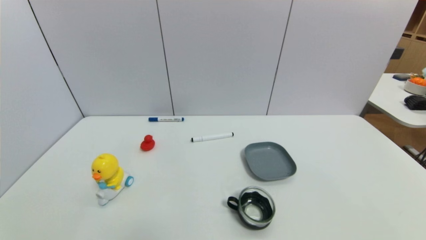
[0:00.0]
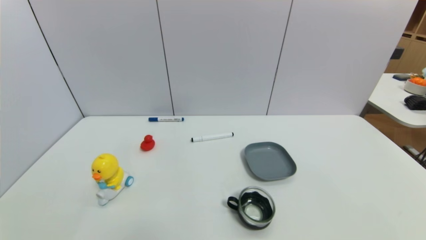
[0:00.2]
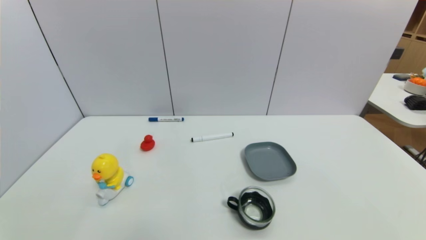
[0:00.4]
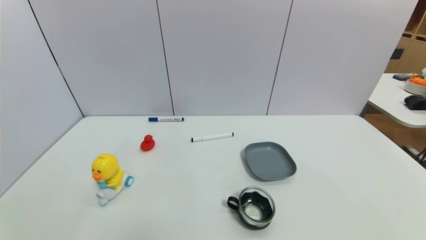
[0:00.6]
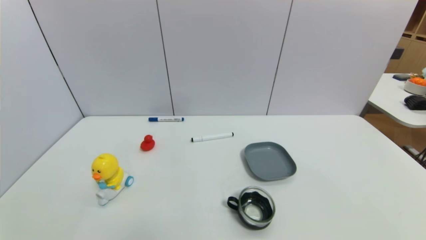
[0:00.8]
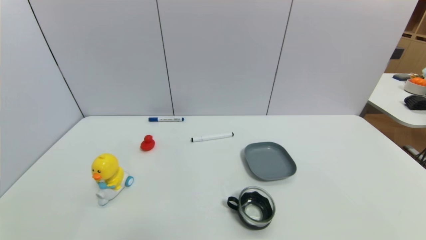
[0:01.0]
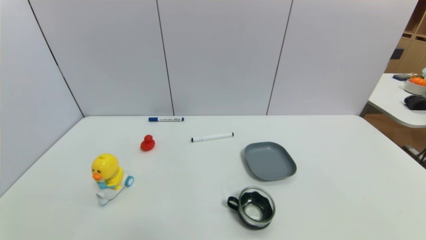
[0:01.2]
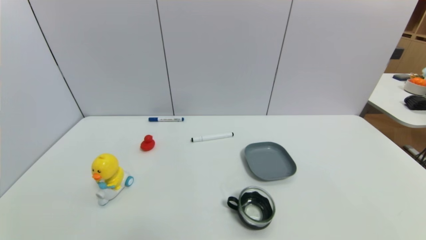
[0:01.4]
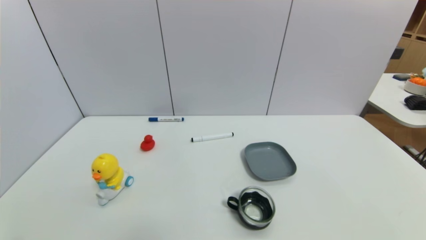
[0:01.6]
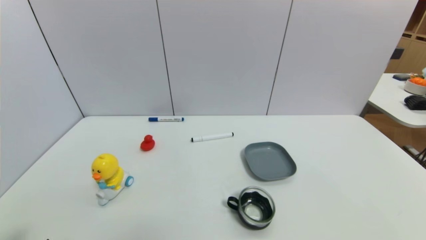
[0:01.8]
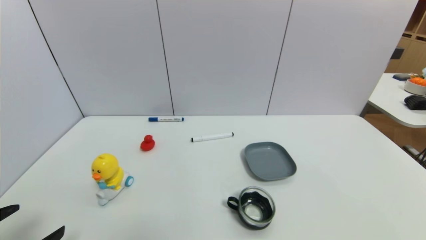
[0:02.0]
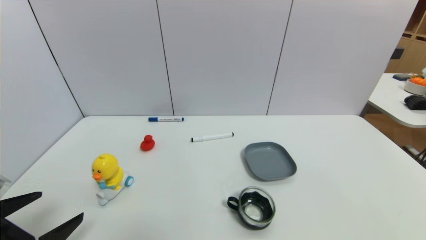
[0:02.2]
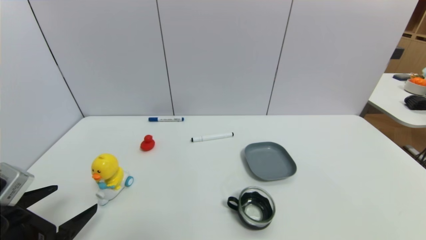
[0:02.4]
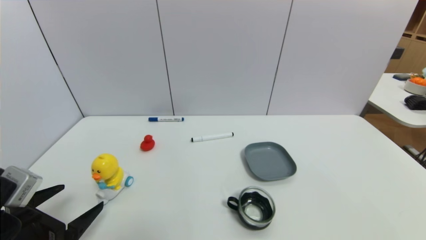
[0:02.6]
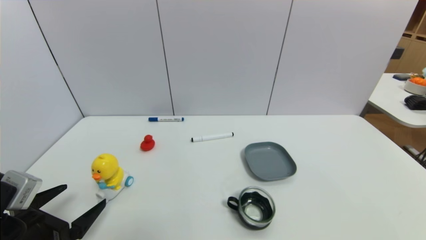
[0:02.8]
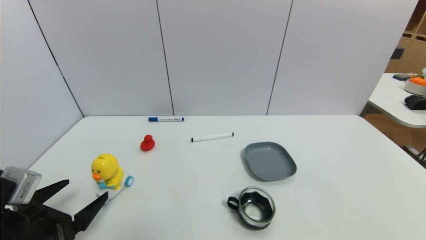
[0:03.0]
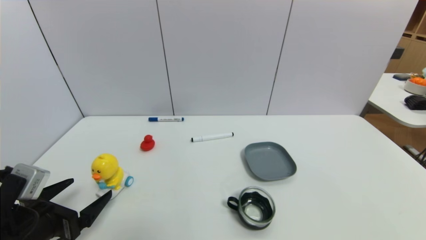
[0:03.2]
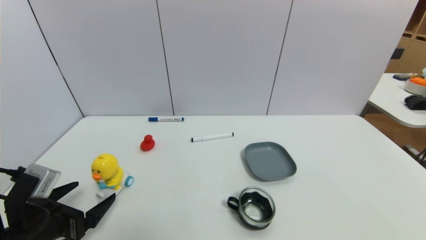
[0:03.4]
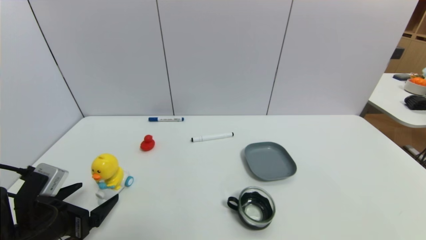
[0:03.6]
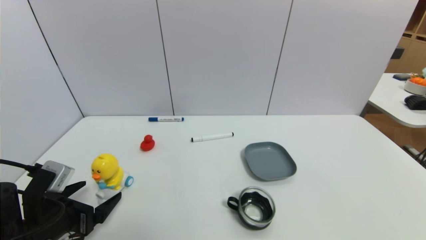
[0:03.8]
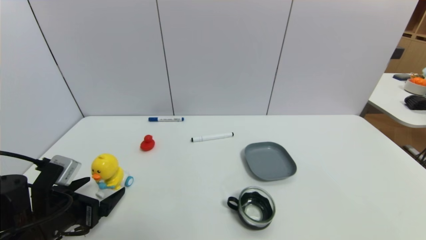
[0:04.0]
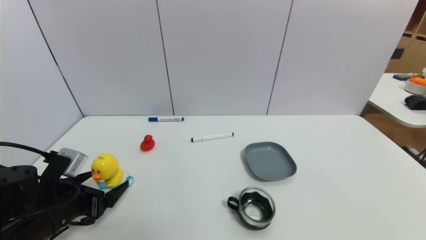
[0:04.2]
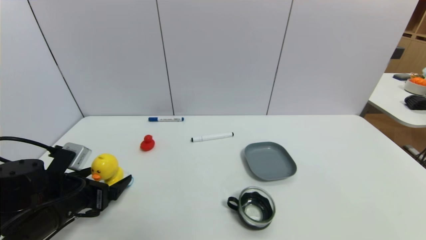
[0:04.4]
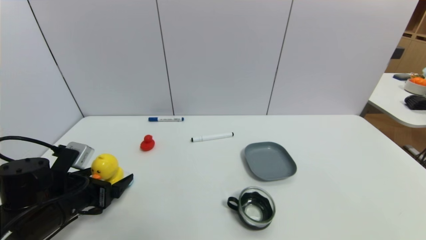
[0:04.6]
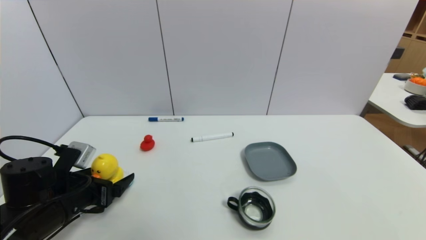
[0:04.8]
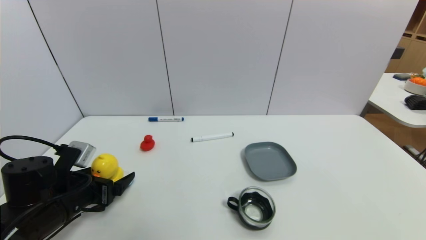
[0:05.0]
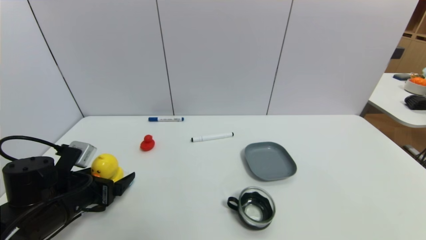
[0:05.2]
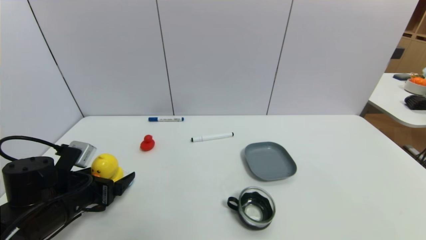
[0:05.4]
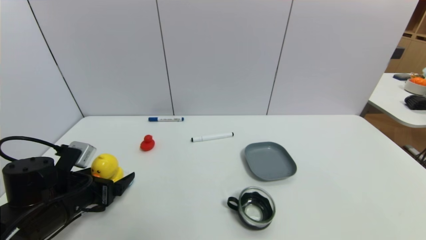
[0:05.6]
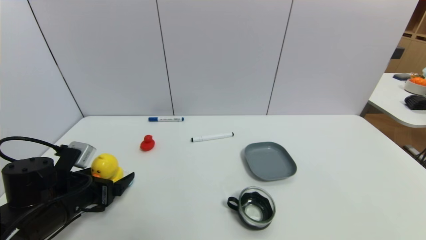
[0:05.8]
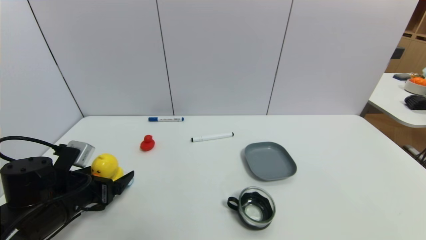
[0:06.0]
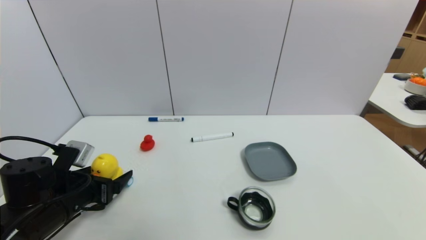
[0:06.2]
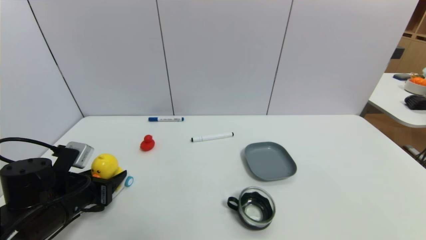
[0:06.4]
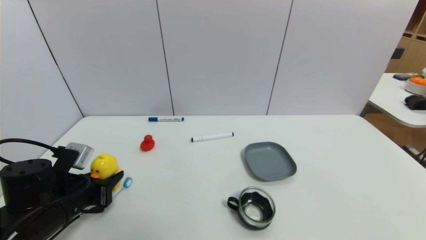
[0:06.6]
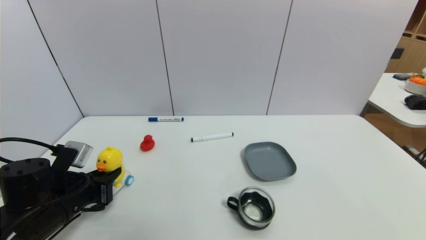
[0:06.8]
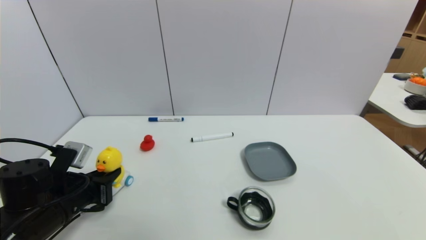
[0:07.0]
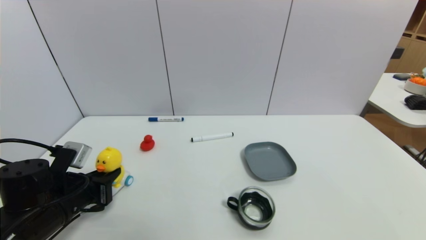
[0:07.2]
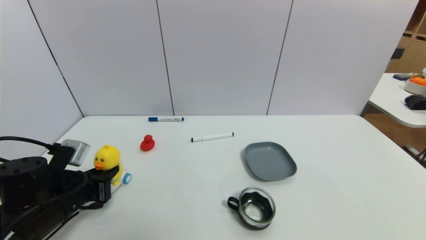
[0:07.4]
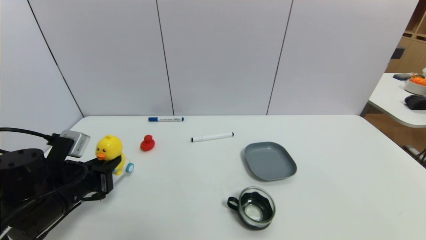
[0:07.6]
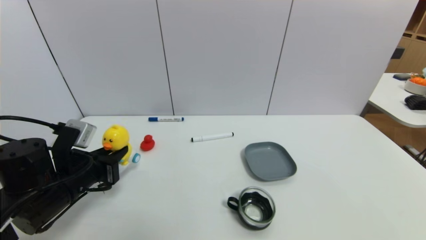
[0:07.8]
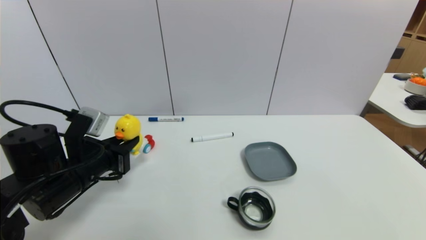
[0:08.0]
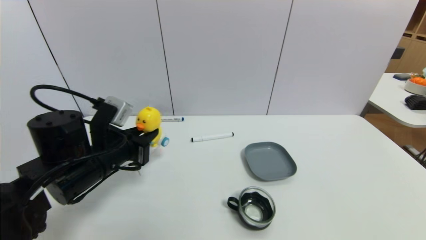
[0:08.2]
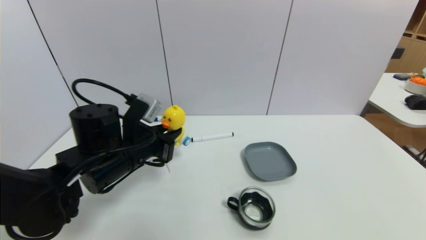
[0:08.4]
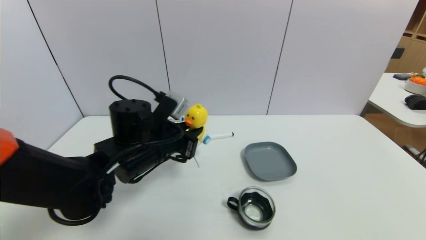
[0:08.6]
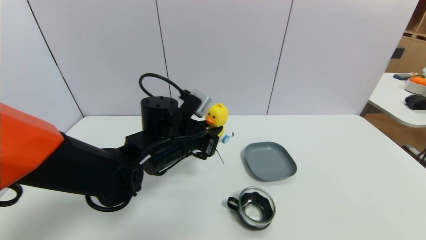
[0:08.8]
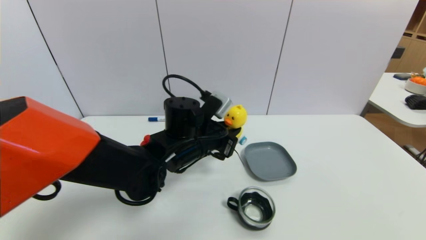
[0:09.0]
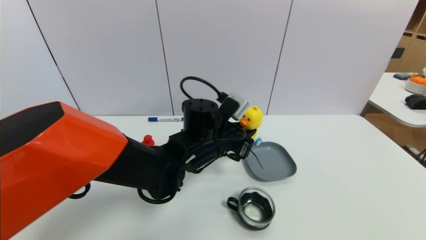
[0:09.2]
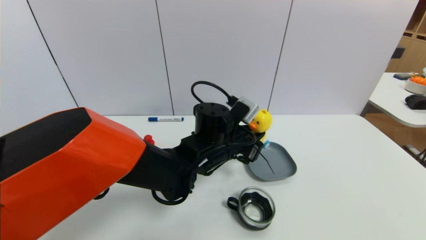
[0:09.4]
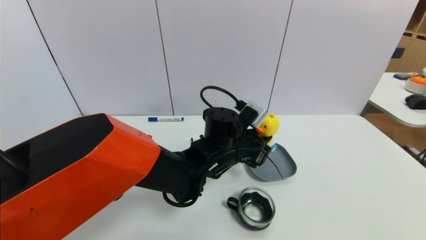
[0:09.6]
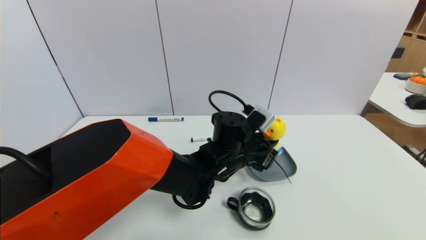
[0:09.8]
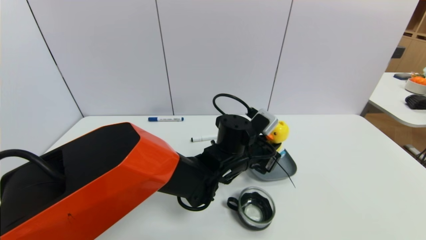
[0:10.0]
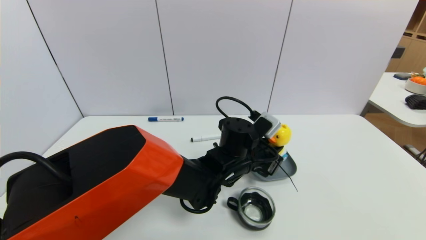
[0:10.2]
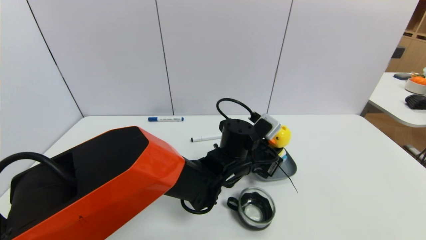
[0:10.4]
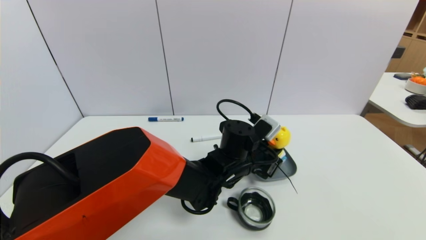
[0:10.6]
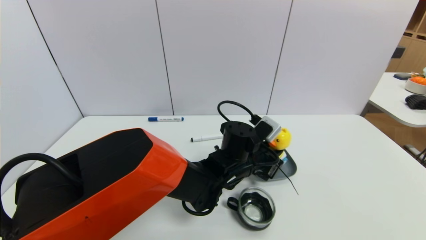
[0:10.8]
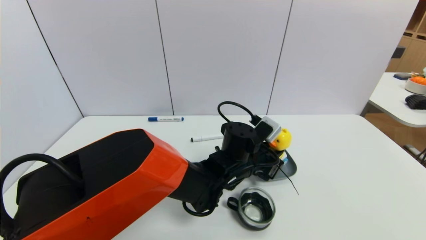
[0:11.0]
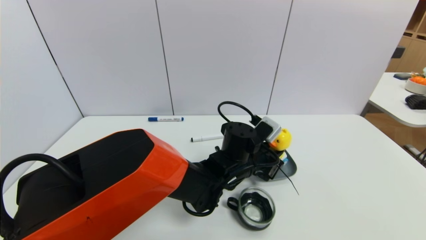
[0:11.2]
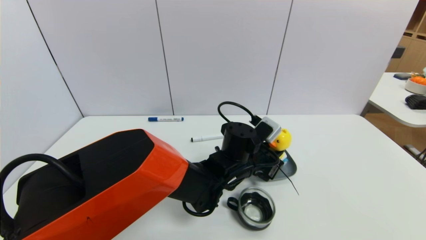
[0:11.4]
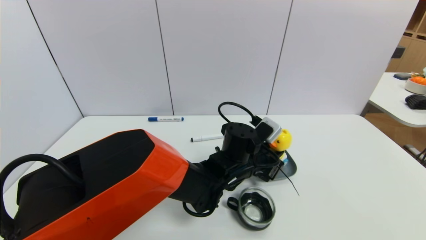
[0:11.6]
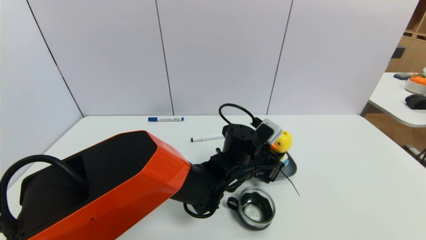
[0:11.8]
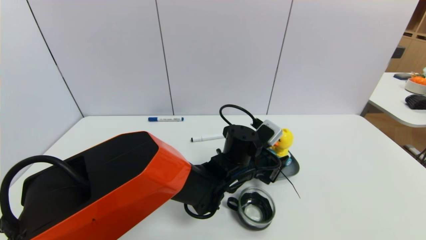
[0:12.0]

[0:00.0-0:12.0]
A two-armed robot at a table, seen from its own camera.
Task of the whole recording: use a gripper to pick the target object and place on the dish.
Step, 0:00.0 to 0:06.8: Grasp the duck toy with the left gripper.
0:01.6 to 0:03.0: The left gripper heads forward, covering approximately 10 cm.
0:03.0 to 0:04.4: The left gripper moves forward, about 5 cm.
0:04.4 to 0:06.0: The two grippers keep their place.
0:06.0 to 0:07.6: The left gripper closes up.
0:07.6 to 0:09.0: The left gripper shifts approximately 25 cm to the right and forward.
0:09.0 to 0:10.4: The left gripper heads to the right, covering approximately 10 cm.
0:10.4 to 0:12.0: The left gripper opens its fingers.

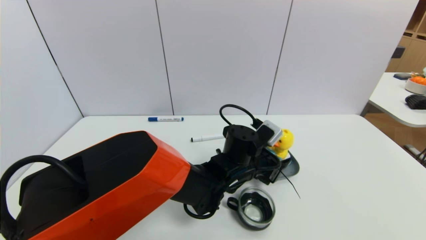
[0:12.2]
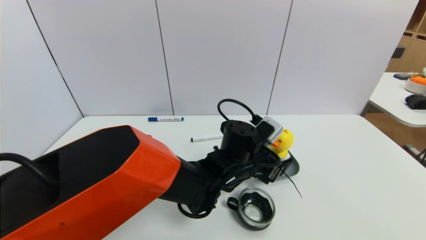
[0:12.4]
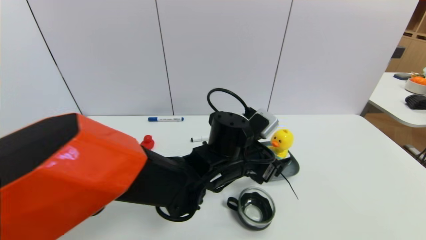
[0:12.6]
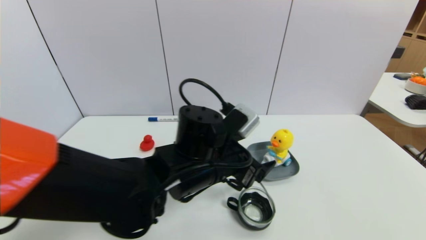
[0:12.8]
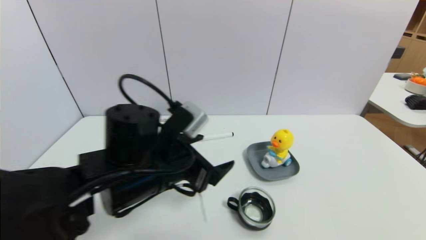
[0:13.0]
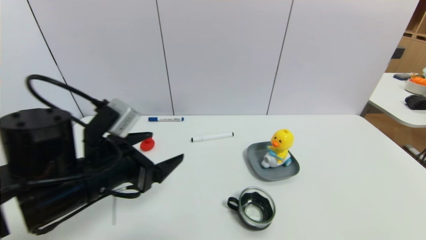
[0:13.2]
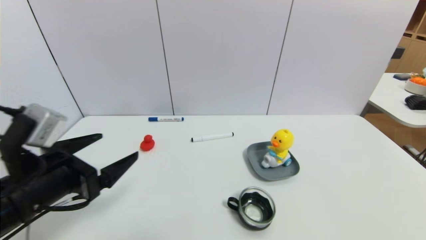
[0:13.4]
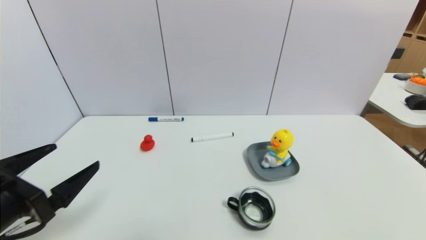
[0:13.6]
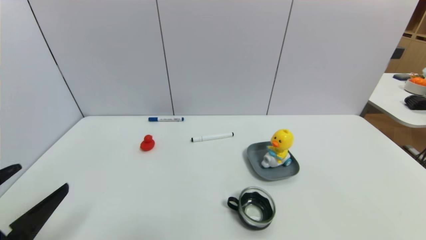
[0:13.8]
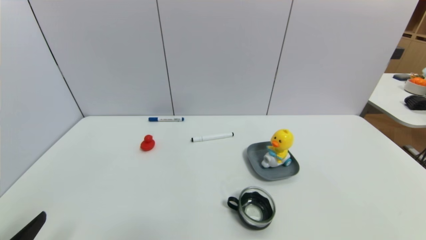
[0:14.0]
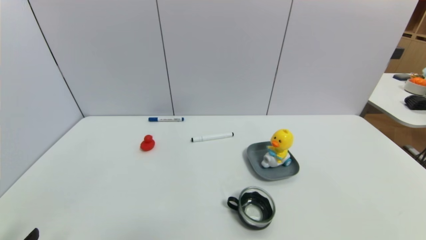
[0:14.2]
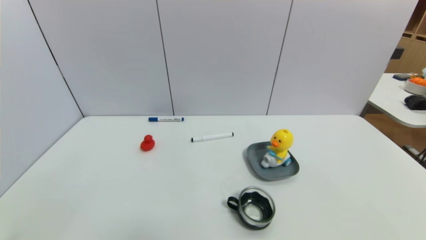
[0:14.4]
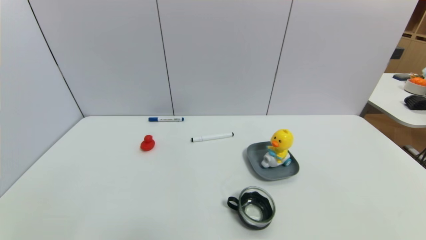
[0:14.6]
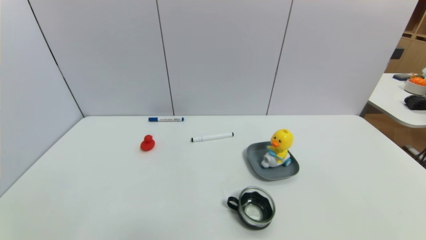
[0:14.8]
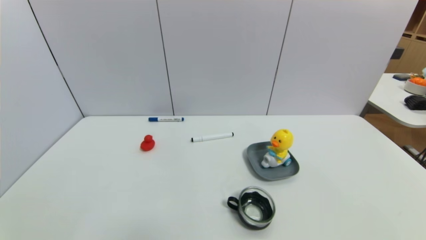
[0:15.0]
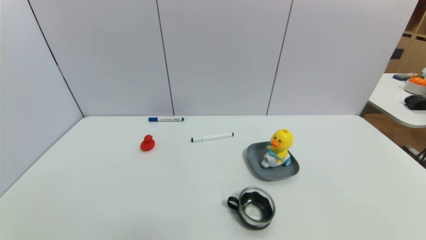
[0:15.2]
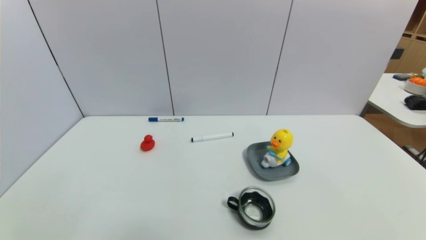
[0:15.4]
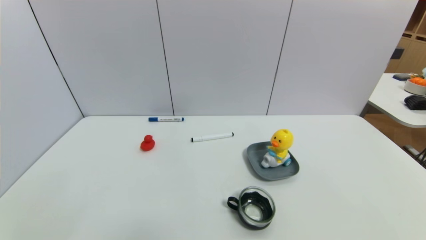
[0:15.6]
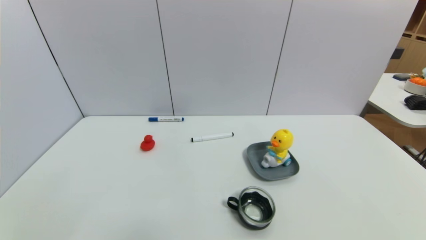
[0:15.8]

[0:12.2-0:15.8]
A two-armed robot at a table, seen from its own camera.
Task of the whole recording: use a gripper to pick the target object and place on the dish.
0:12.2 to 0:14.0: The left gripper travels to the left and backward by approximately 50 cm, and opens.
0:14.0 to 0:15.8: The left gripper is displaced downward by roughly 10 cm.

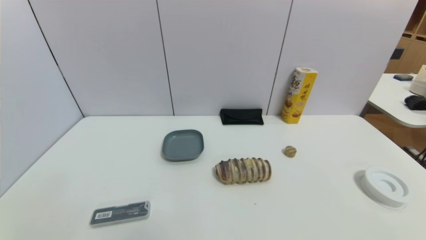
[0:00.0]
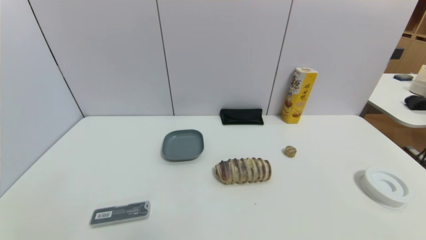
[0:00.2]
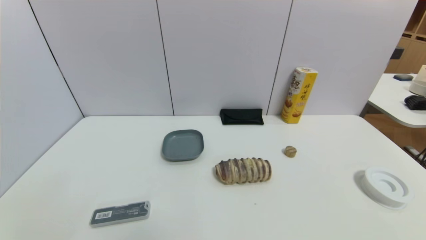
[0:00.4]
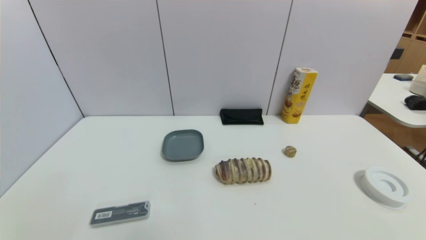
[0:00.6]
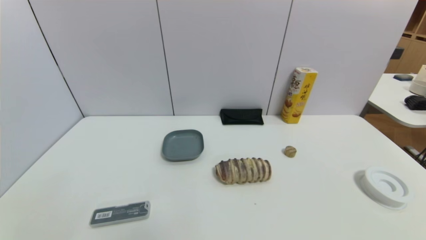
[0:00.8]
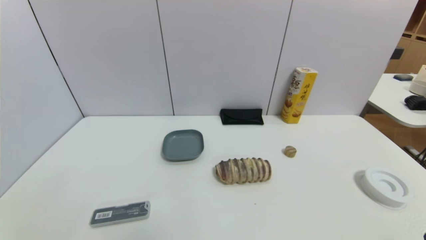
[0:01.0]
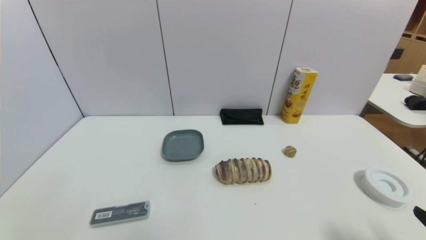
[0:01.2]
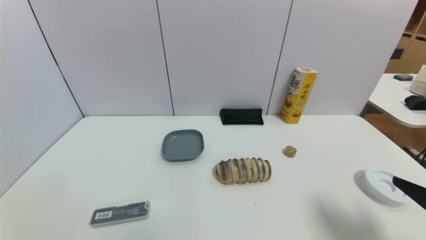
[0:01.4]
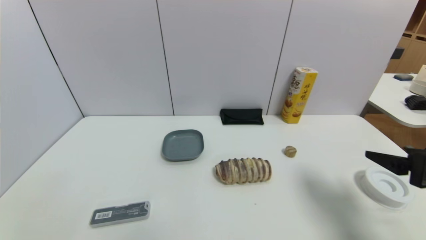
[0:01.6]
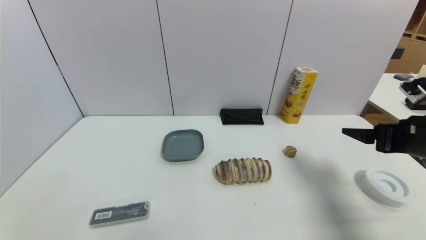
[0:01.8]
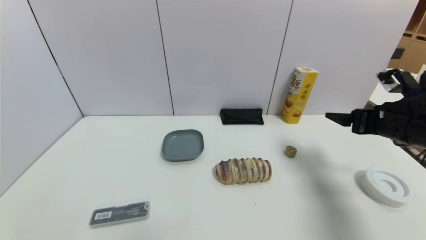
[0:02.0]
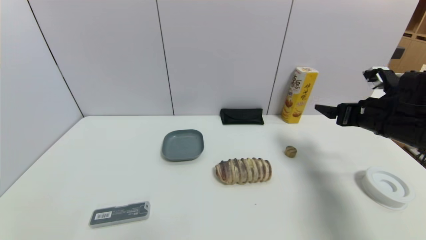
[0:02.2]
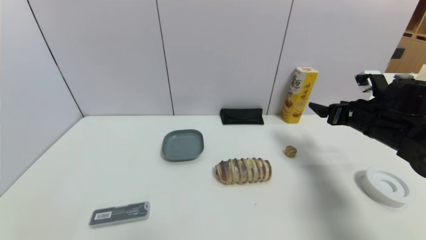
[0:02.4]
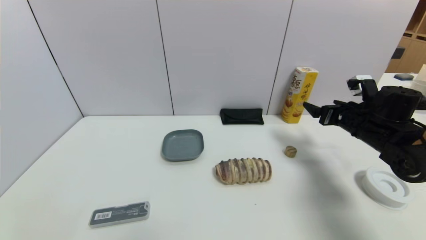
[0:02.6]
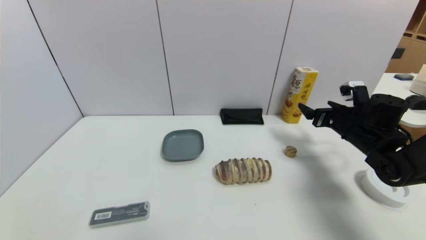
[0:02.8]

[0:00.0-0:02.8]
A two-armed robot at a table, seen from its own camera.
Task of the whole recording: use a gripper to pick the target object and place on the dish.
0:00.0 to 0:01.4: The right gripper moves upward and forward, about 15 cm.
0:01.4 to 0:02.8: The right gripper moves forward, roughly 25 cm.
